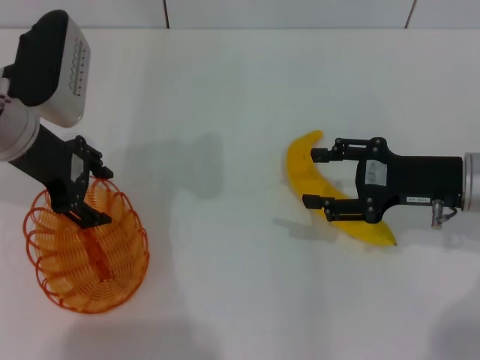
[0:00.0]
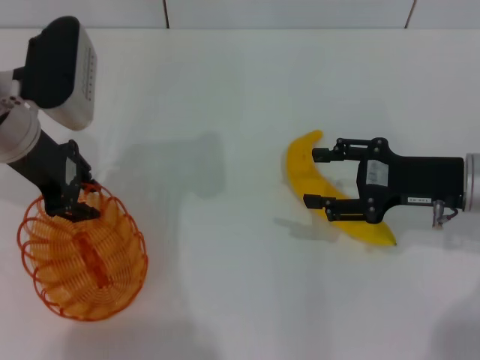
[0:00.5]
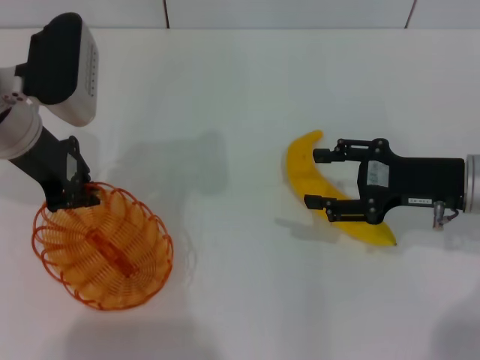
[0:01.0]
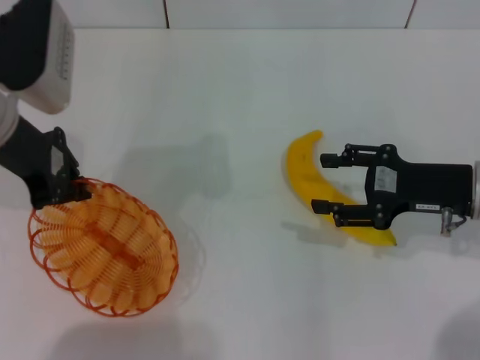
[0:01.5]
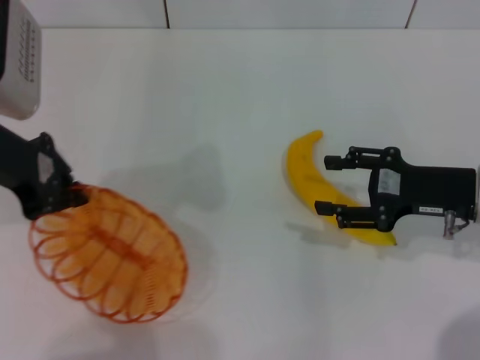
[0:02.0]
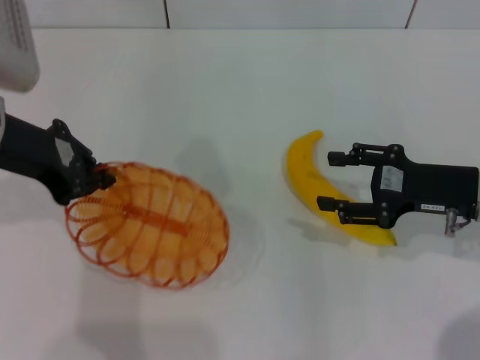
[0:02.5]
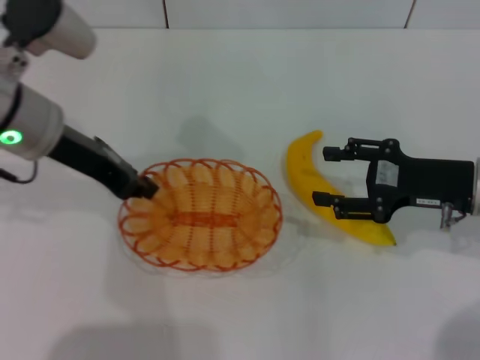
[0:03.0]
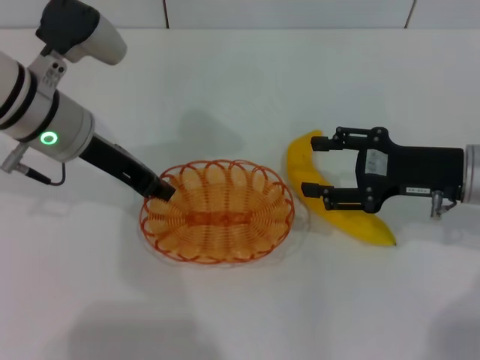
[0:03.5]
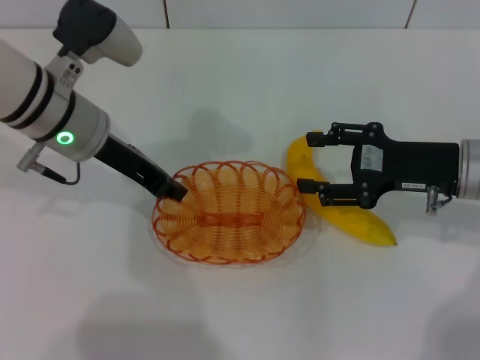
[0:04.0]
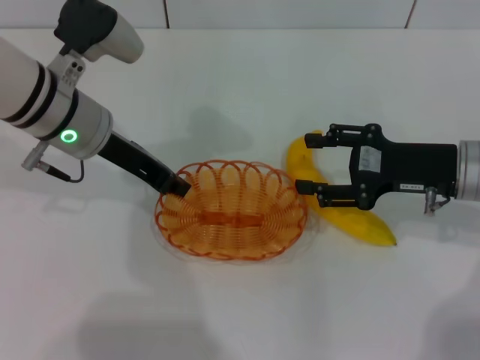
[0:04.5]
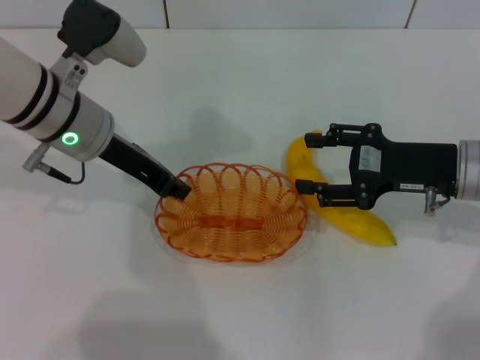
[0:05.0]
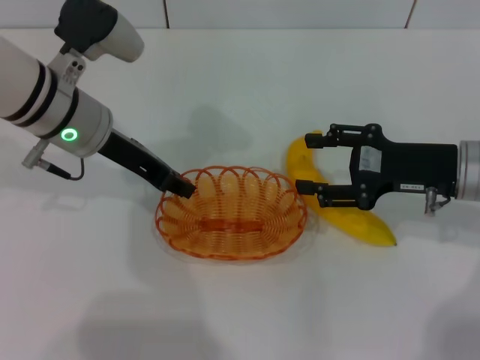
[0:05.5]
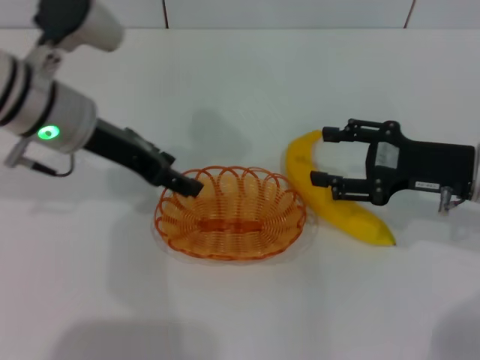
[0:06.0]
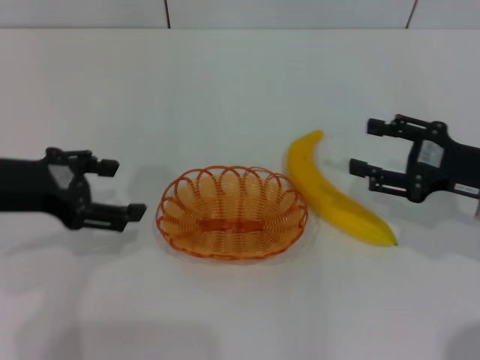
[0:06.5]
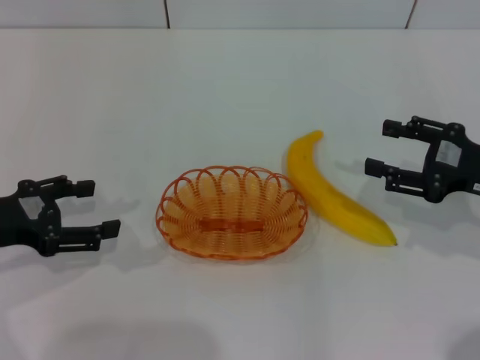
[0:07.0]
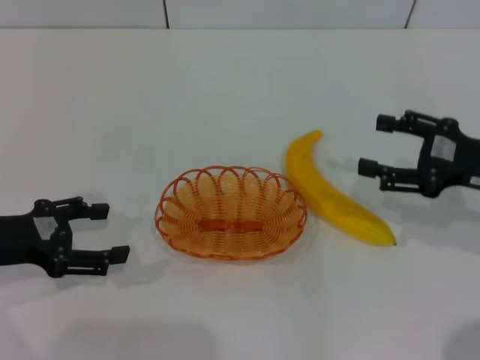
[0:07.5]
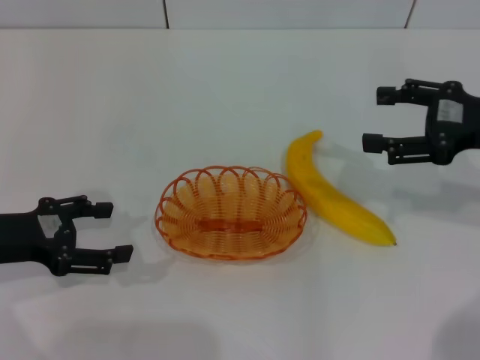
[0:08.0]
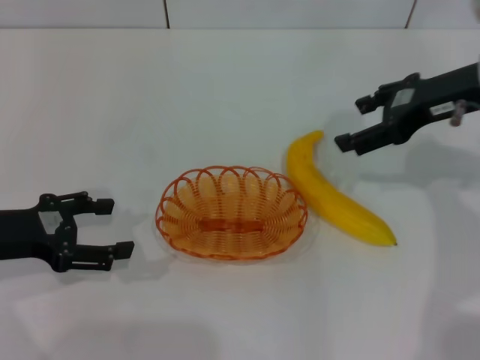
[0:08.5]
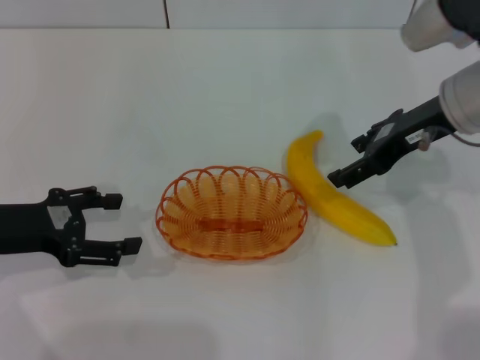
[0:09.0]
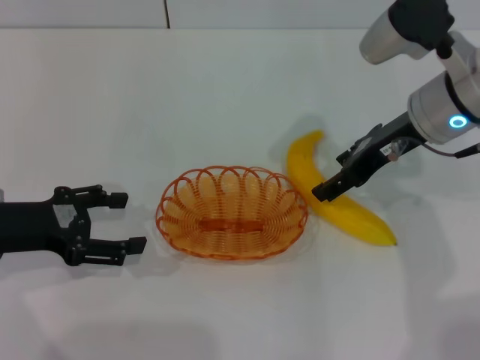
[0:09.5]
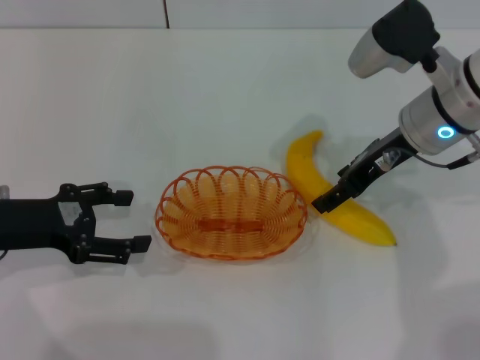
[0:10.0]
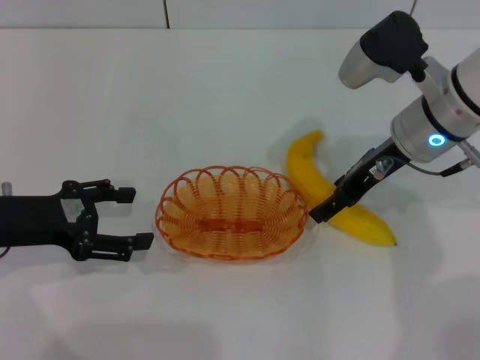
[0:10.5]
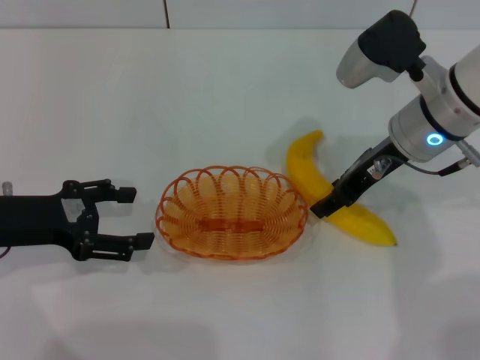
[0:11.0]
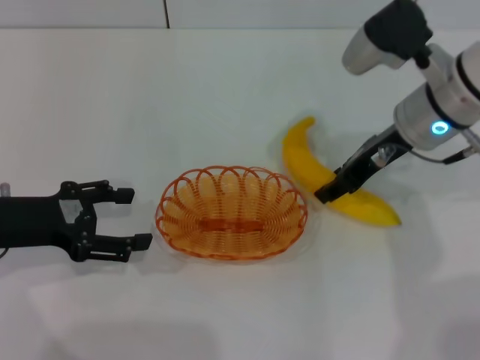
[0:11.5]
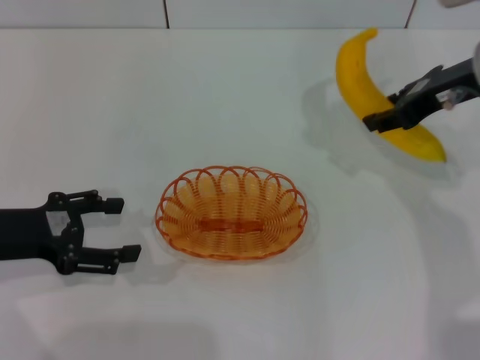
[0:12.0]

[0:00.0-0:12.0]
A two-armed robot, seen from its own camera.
Step, 0:00.0 to 0:03.0: Pick up the basket with the left gripper.
Step, 0:03.5 to 0:05.5: Place the basket in the center of view with the left gripper.
0:00.0 to 0:02.0: The left gripper moves roughly 5 cm, and closes.
0:02.0 to 0:04.0: The left gripper is displaced to the right and downward by approximately 10 cm.
0:04.0 to 0:06.0: The left gripper opens its fingers.
0:06.0 to 0:08.0: The right gripper heads upward, covering approximately 5 cm, and opens its fingers; the left gripper shifts approximately 15 cm to the left, backward and downward.
0:08.0 to 0:10.0: The right gripper shifts roughly 15 cm to the left and forward.
0:10.0 to 0:12.0: The right gripper heads upward and to the right, covering about 10 cm, and closes.

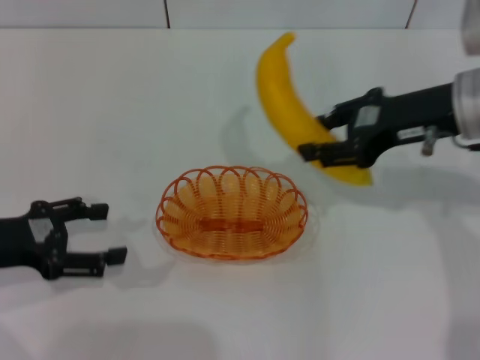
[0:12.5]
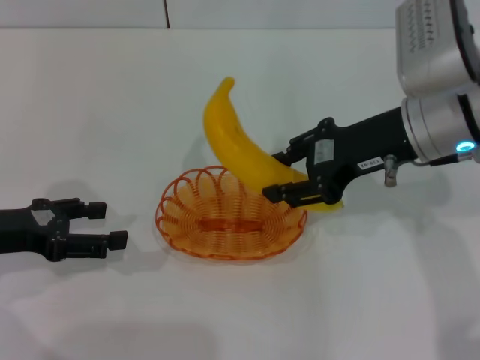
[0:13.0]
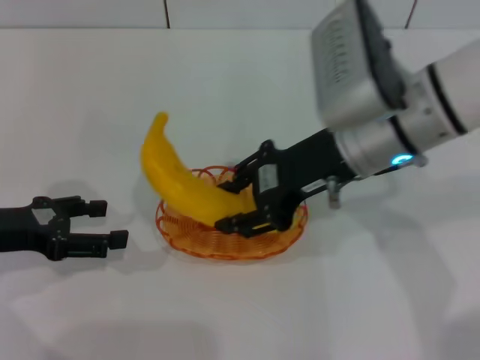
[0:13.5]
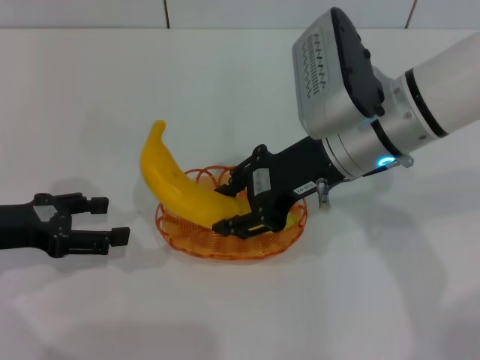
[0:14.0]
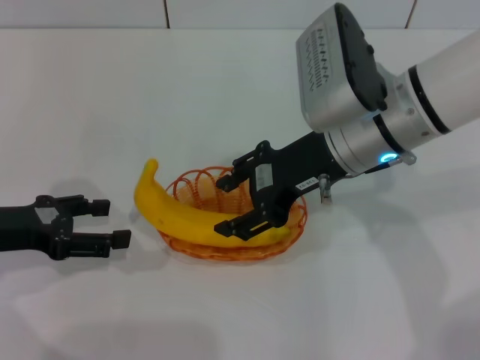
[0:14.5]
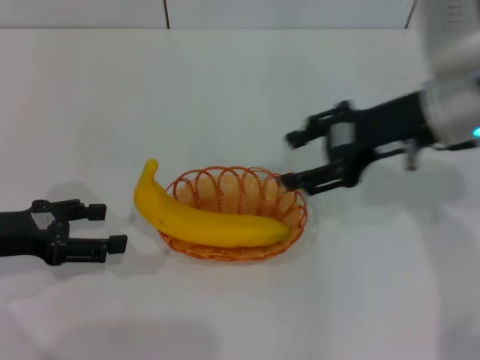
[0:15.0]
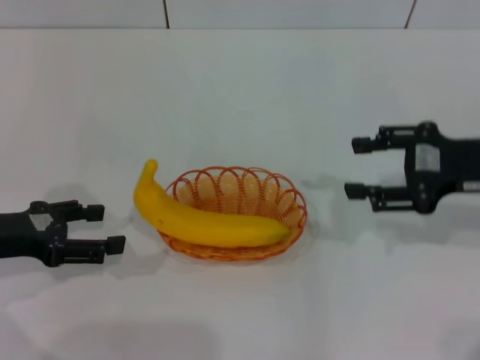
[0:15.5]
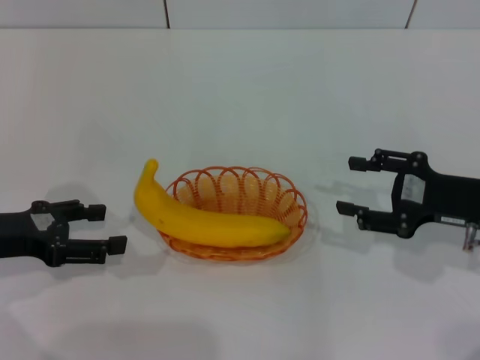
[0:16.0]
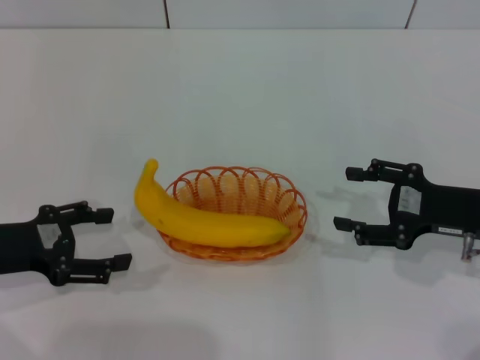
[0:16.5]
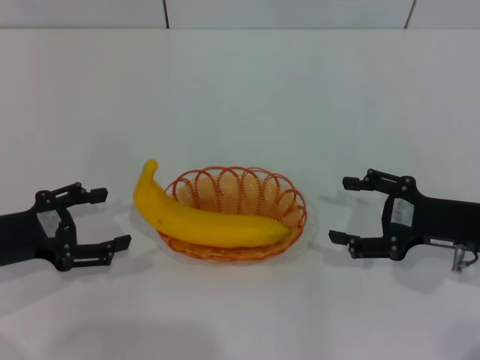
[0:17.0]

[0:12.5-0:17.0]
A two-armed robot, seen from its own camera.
Step, 0:12.5 to 0:14.5: Place the banana into the basket with the right gripper.
0:12.5 to 0:14.5: The right gripper moves to the left, some 10 cm.
0:14.5 to 0:17.0: The right gripper shifts some 20 cm to the right, downward and backward, and opens up.
